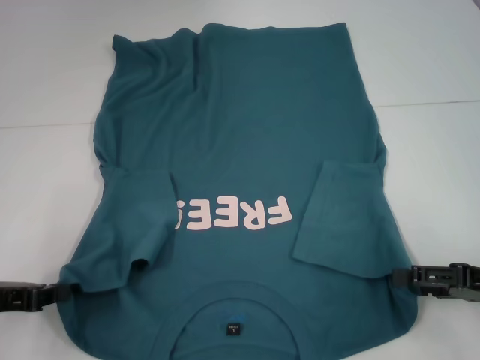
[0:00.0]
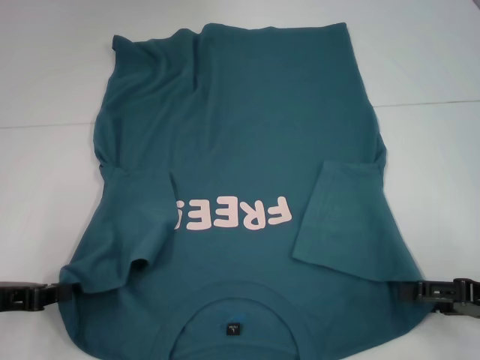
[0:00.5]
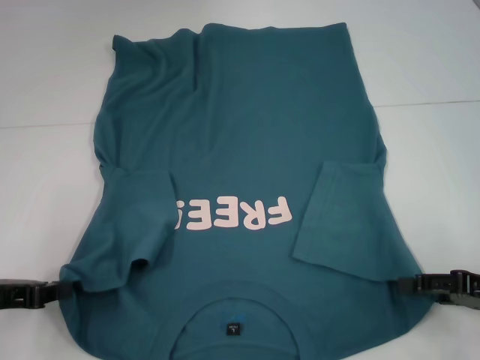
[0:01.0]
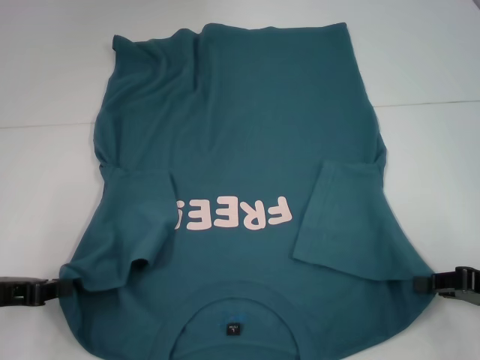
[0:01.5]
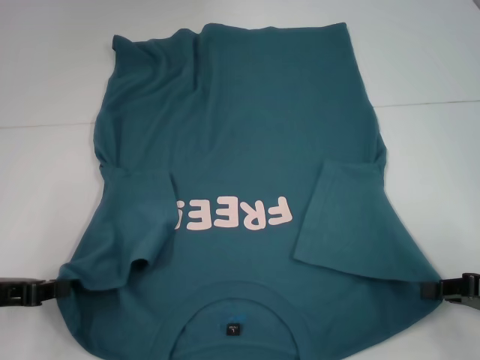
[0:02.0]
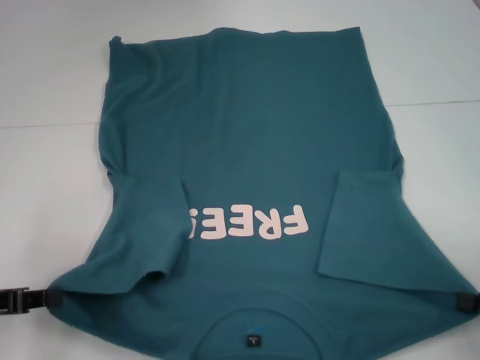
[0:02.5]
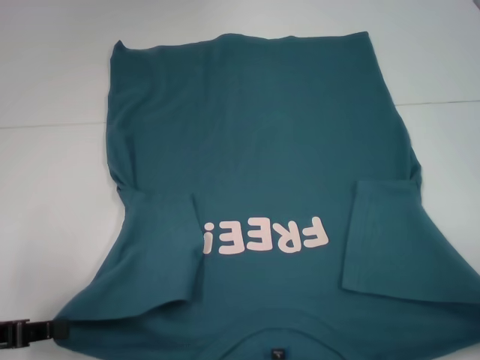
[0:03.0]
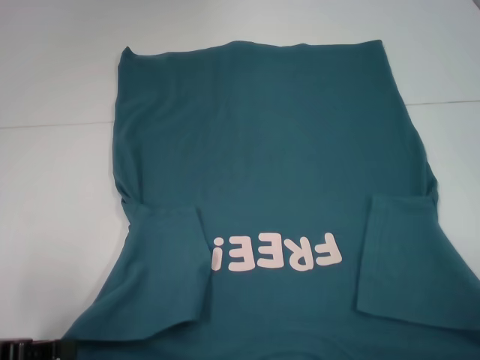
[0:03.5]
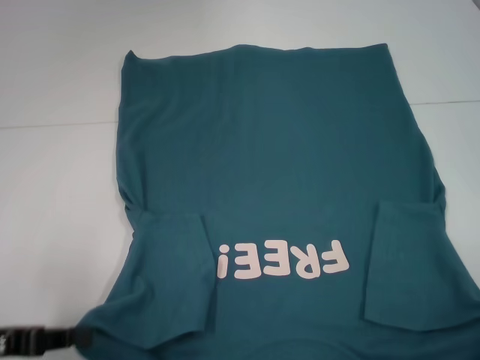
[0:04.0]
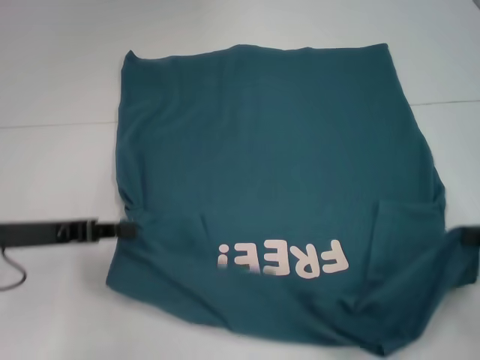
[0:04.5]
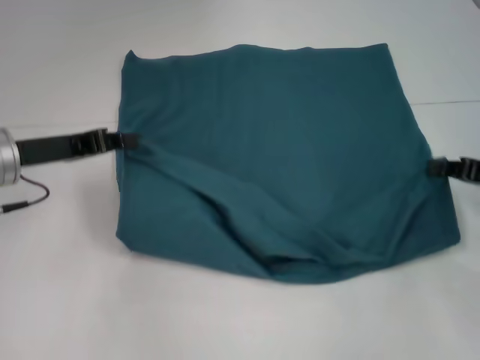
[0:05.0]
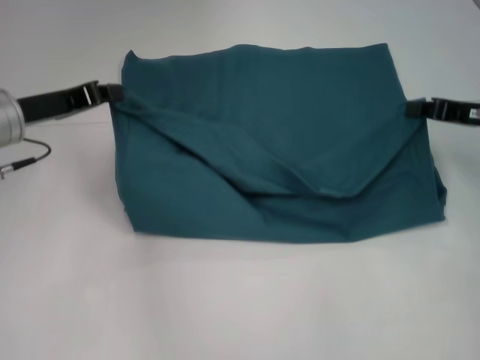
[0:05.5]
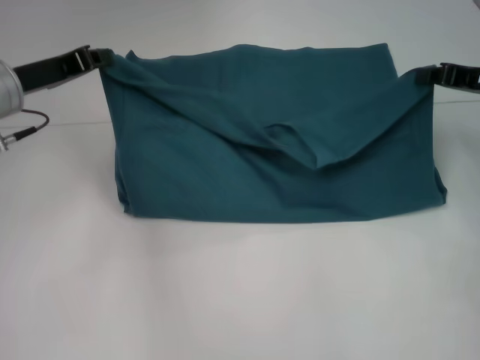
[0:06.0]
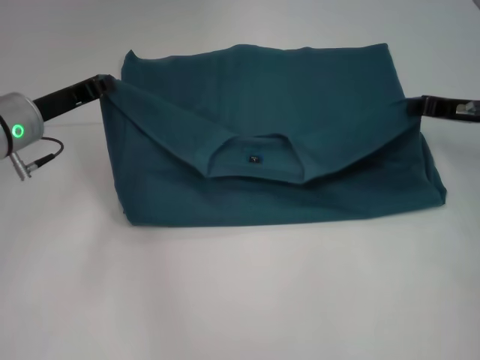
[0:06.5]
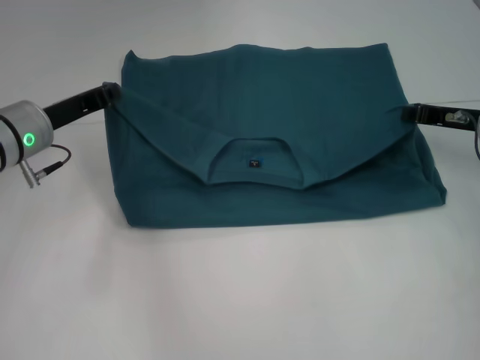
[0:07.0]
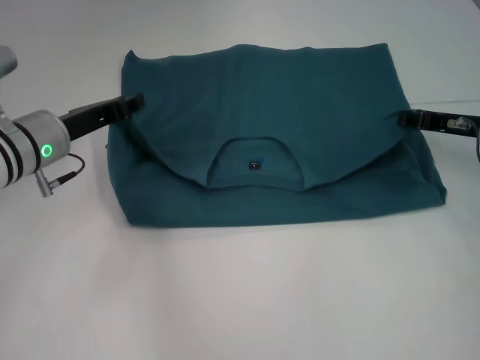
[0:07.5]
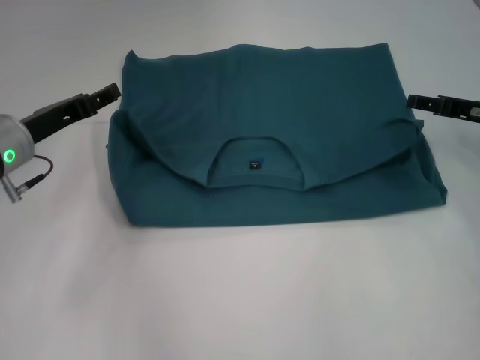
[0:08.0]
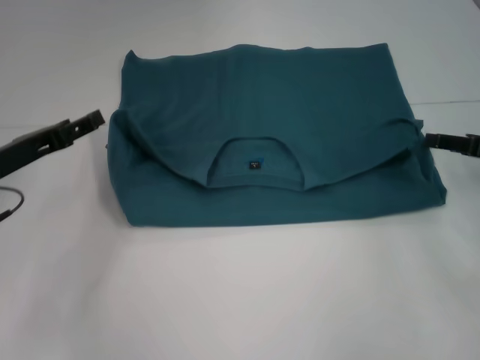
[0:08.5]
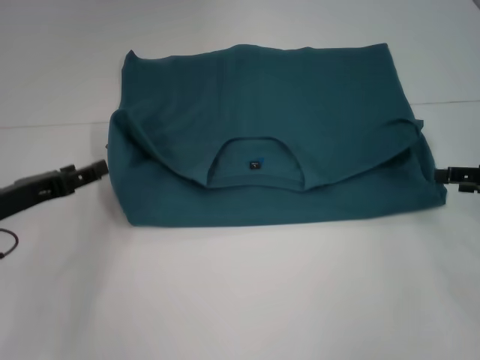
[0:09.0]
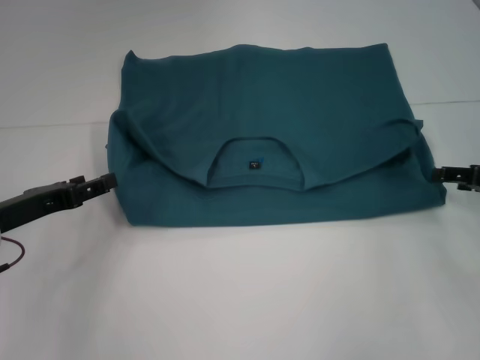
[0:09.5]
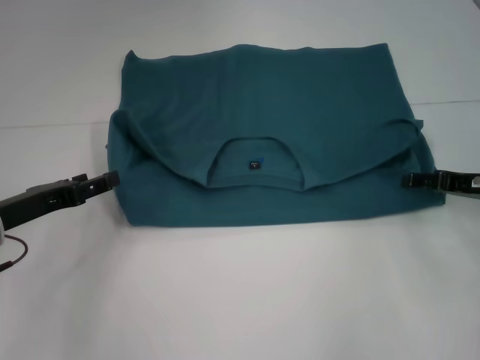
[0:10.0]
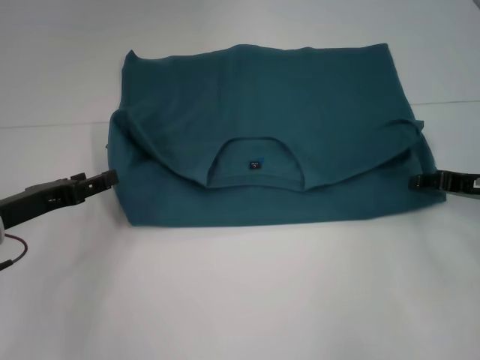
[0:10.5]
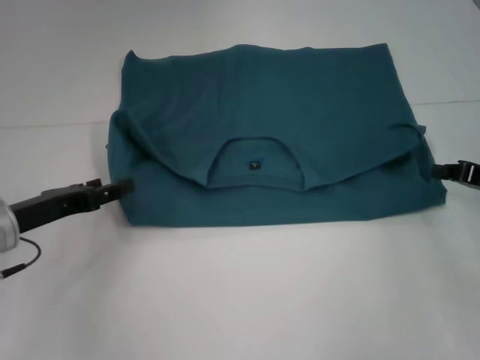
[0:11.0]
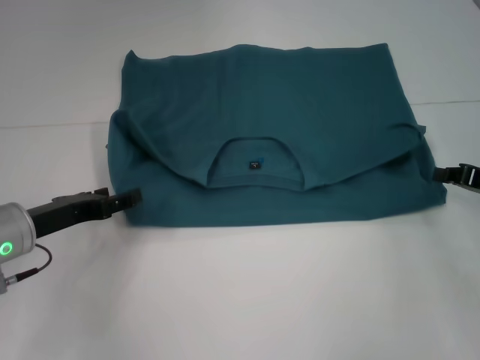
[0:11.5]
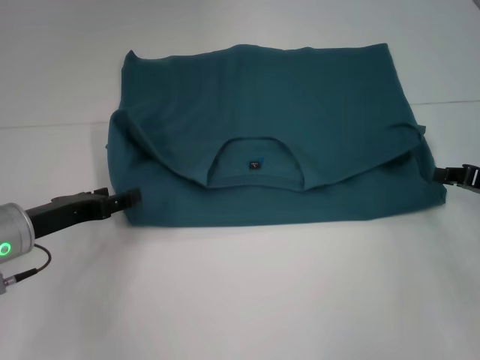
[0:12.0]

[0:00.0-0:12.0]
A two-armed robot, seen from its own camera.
Step, 0:00.0 to 0:02.0: Grab the bottom right corner with your right hand.
Step, 0:02.5 to 0:08.5: Fold the clothes to the left.
Step, 0:02.5 to 0:08.5: Fold the clothes to the right.
0:00.0 to 0:02.0: The right gripper closes.
0:02.0 to 0:04.0: The right gripper moves backward and to the right, approximately 10 cm.
0:04.0 to 0:06.0: The left gripper travels forward by approximately 20 cm. The right gripper heads forward and upward, covering approximately 30 cm.
0:06.0 to 0:08.0: The left gripper heads downward, covering roughly 5 cm, and opens up. Meanwhile the right gripper opens.
0:08.0 to 0:10.0: The left gripper is displaced backward by approximately 5 cm, while the right gripper moves about 5 cm.
0:10.0 to 0:12.0: The right gripper closes up.

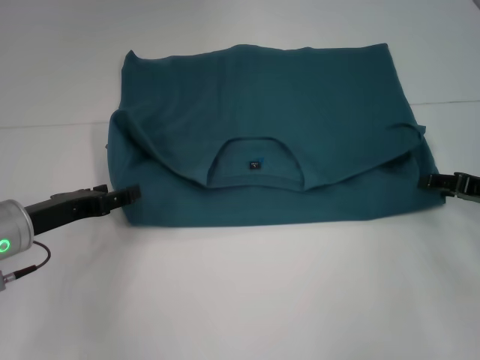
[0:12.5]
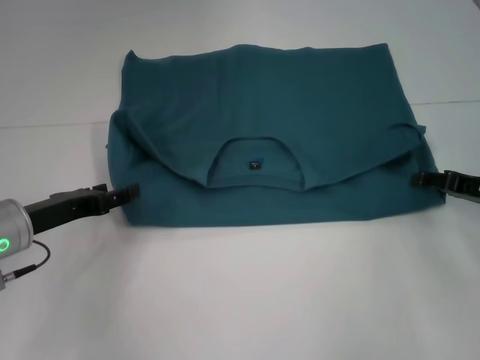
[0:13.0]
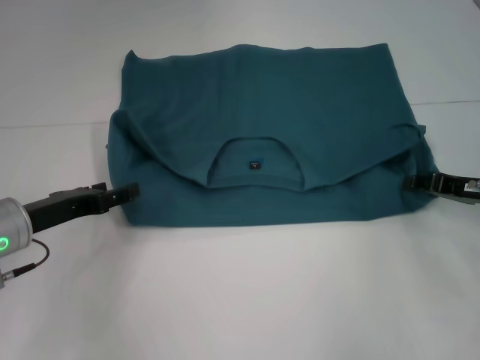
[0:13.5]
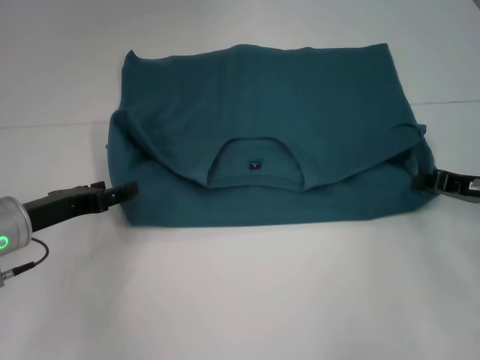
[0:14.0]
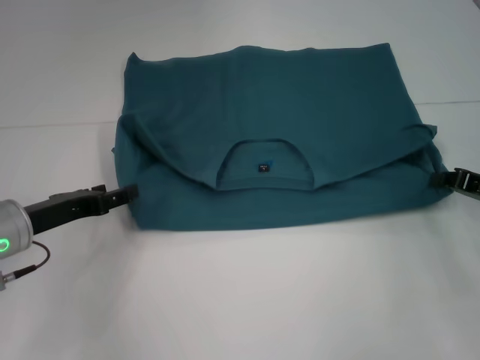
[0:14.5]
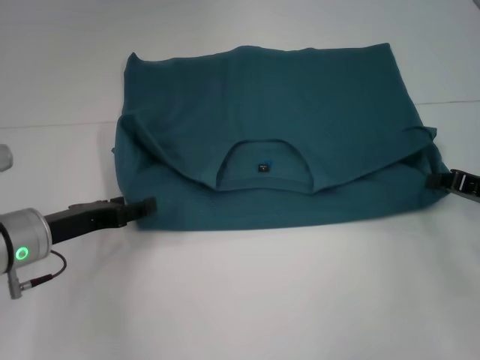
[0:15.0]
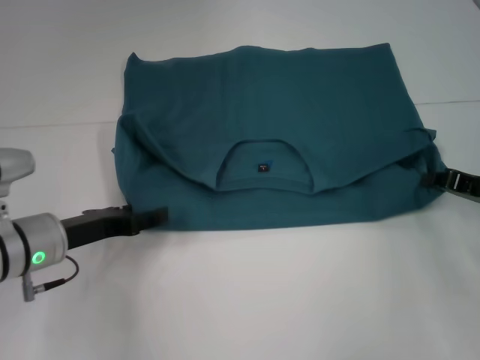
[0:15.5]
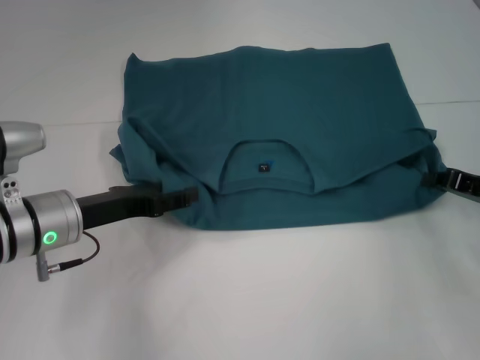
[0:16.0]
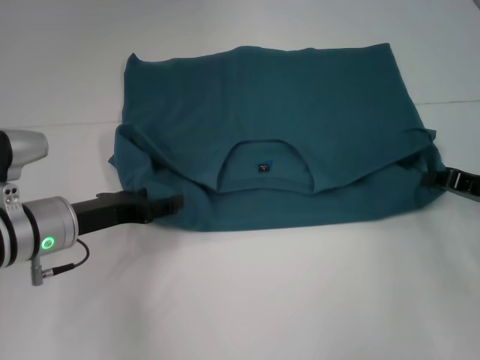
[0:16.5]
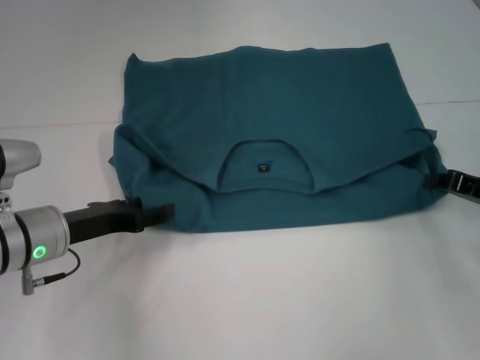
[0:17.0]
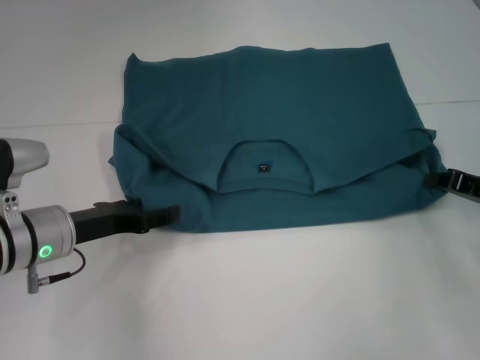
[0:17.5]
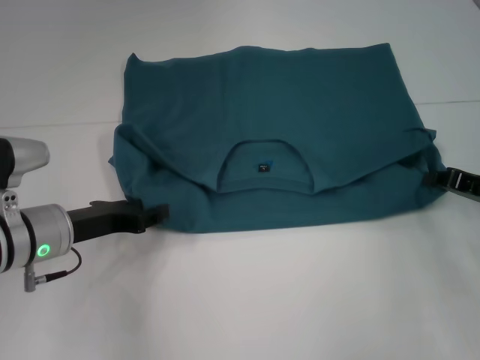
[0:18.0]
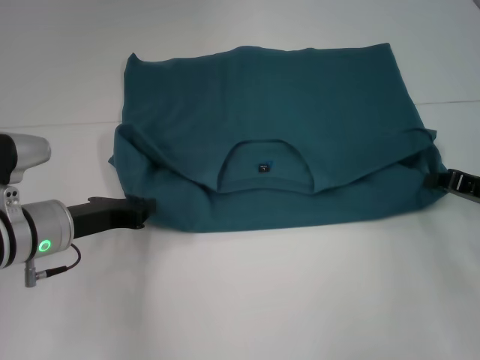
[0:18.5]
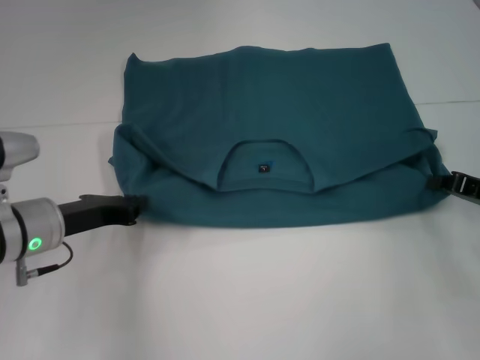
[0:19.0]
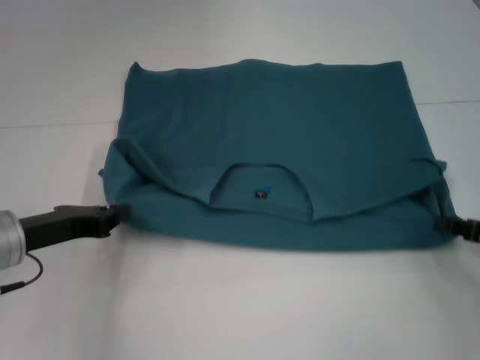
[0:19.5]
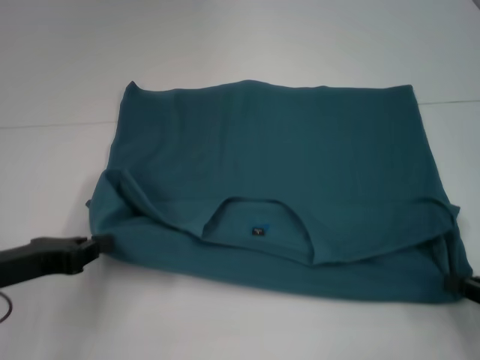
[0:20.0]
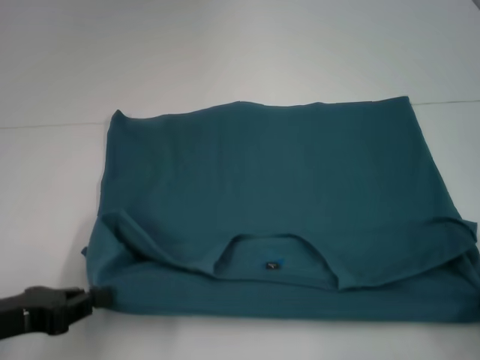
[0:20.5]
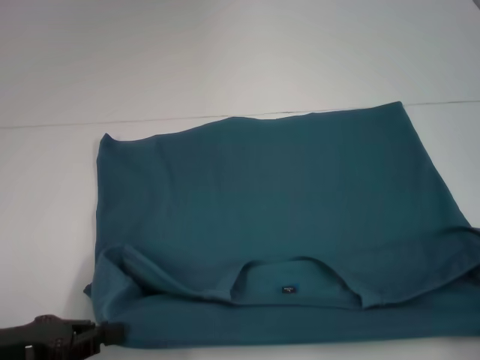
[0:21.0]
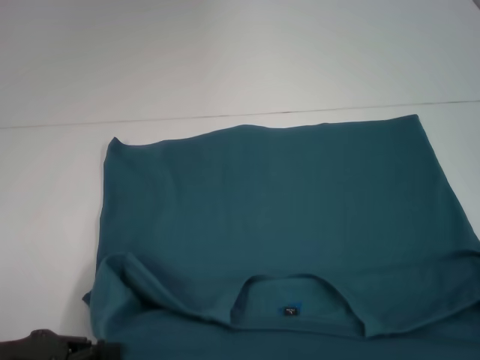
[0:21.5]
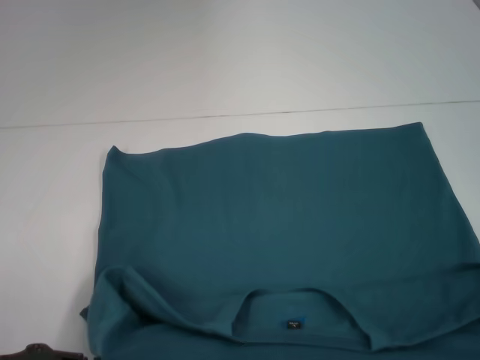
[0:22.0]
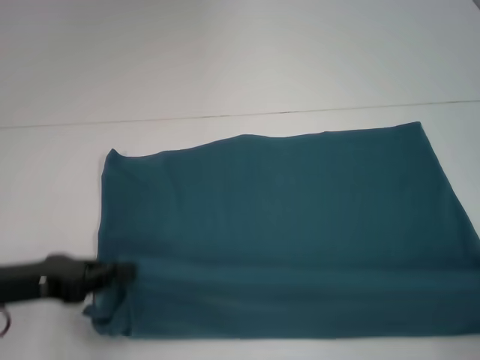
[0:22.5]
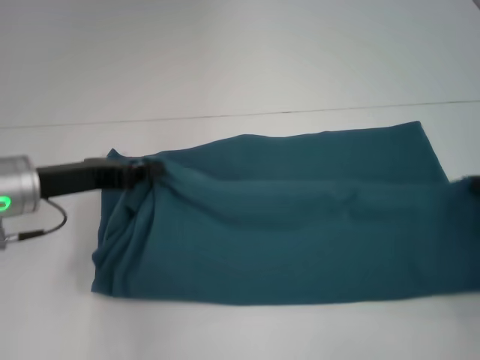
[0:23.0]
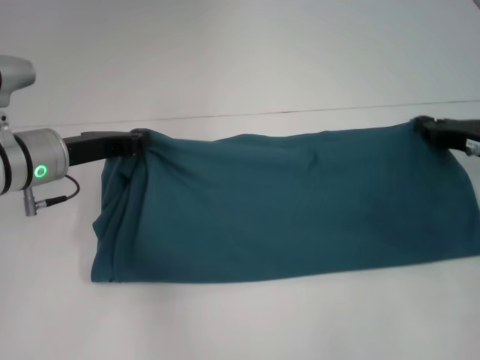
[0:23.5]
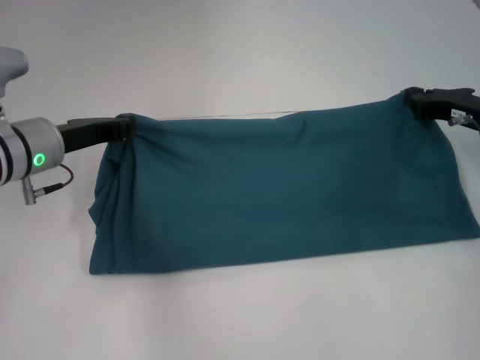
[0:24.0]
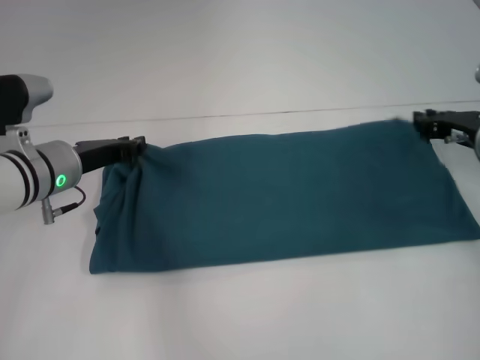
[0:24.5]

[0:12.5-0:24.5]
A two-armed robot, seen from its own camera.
Step, 0:12.5 to 0:21.0: Pull the clothes with your left hand.
Step, 0:12.5 to 0:21.0: Pull the clothes with your right hand.
0:12.5 to 0:14.5: The right gripper closes up.
0:14.5 to 0:16.5: The grippers move only a little.
0:16.5 to 0:18.5: The left gripper closes.
0:18.5 to 0:20.5: The left gripper moves backward and to the left, approximately 15 cm; the right gripper is displaced backward by some 15 cm.
0:20.5 to 0:22.5: The right gripper goes backward and returns, approximately 10 cm each way.
0:22.5 to 0:24.5: The left gripper moves forward and to the right, about 15 cm, while the right gripper moves forward and to the left, approximately 25 cm.

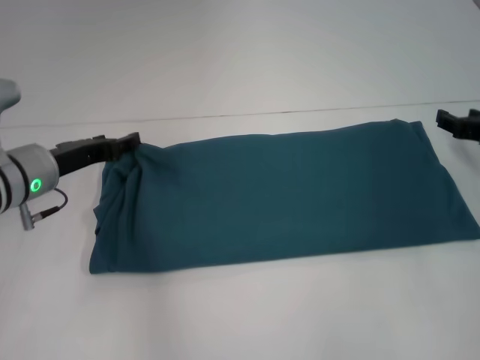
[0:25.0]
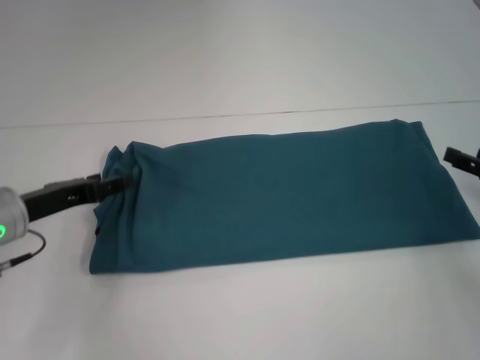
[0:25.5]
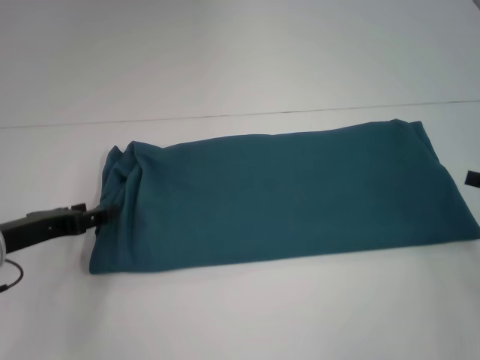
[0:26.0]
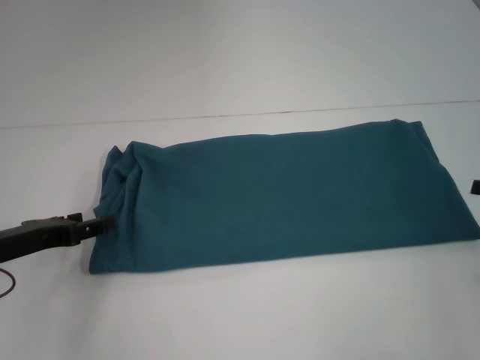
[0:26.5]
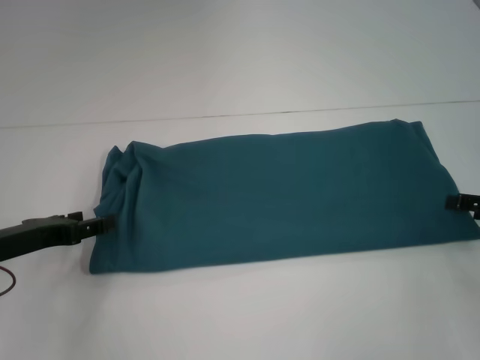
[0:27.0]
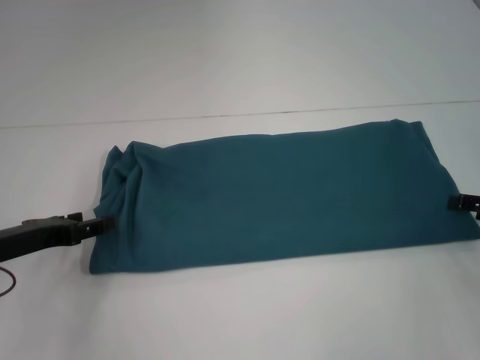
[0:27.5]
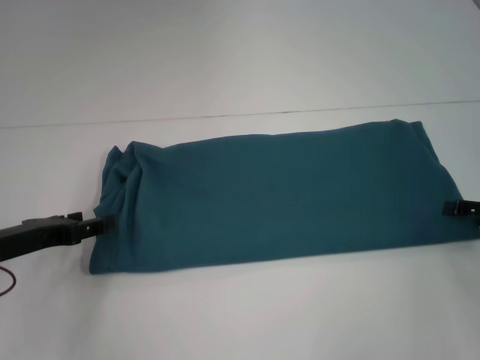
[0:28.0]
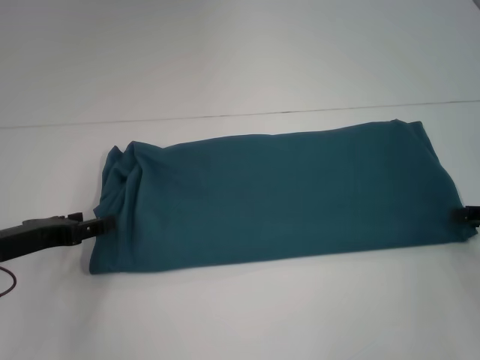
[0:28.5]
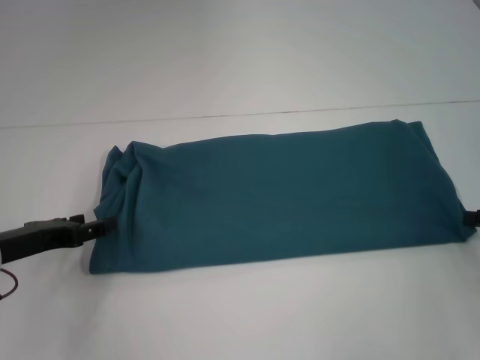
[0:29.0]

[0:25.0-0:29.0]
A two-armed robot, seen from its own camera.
0:25.0 to 0:27.0: The right gripper shifts about 10 cm backward, and opens. The left gripper moves backward and to the left, approximately 10 cm.
